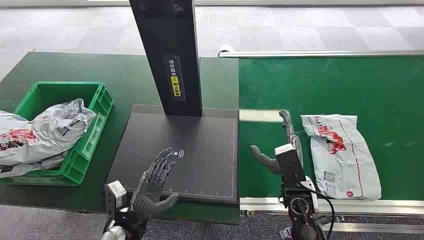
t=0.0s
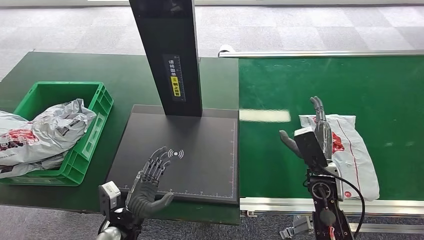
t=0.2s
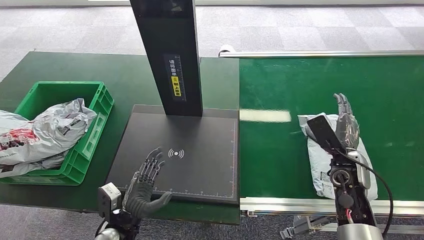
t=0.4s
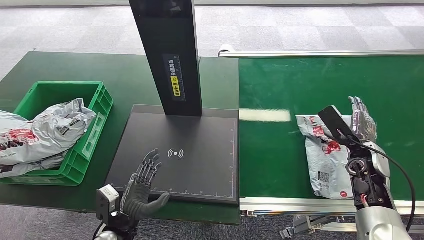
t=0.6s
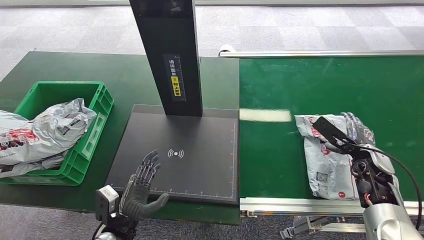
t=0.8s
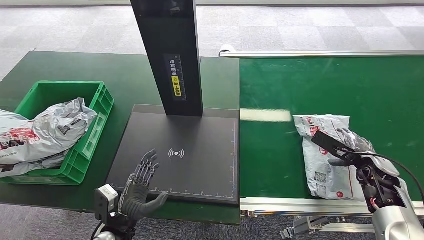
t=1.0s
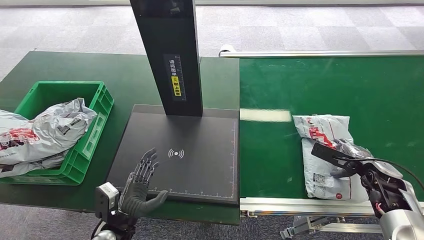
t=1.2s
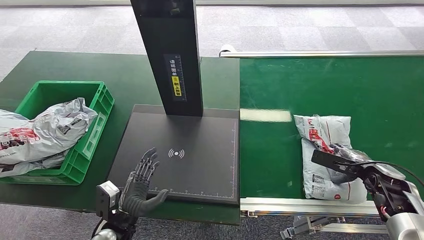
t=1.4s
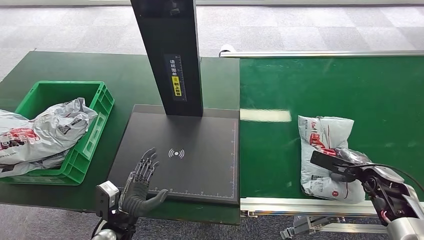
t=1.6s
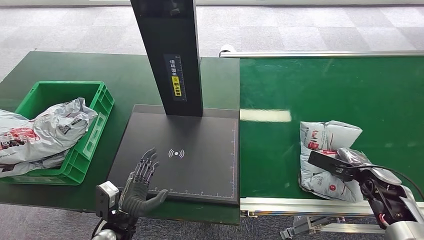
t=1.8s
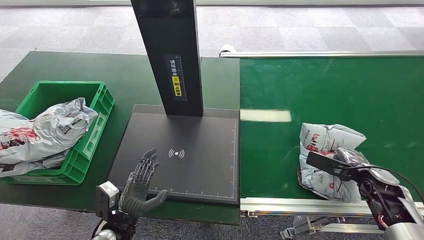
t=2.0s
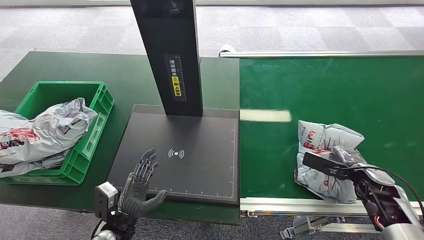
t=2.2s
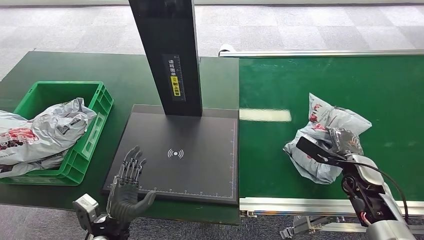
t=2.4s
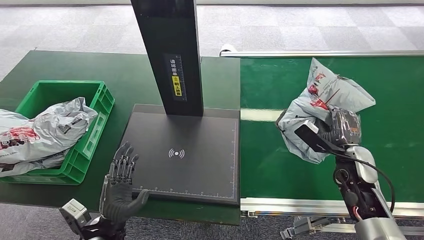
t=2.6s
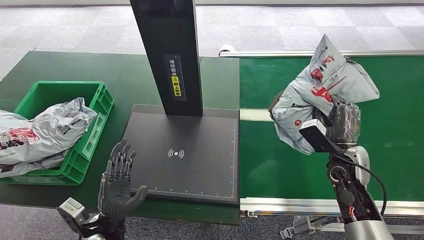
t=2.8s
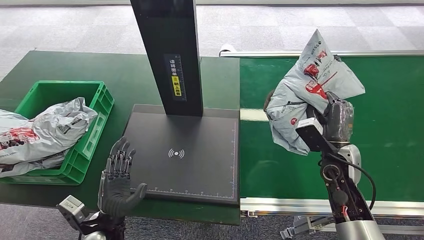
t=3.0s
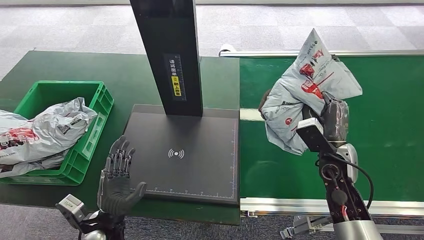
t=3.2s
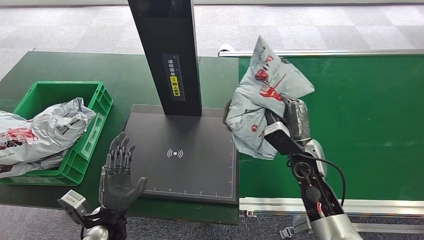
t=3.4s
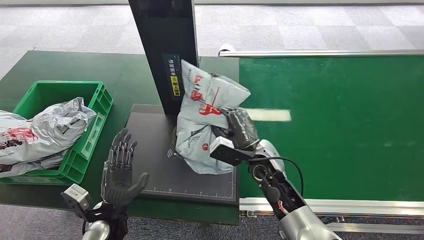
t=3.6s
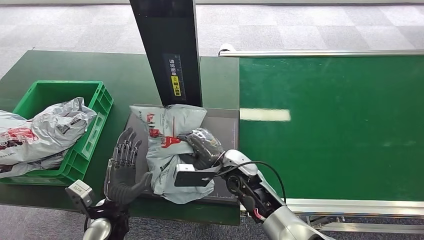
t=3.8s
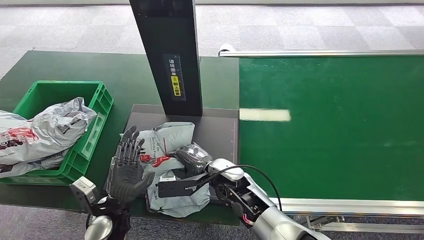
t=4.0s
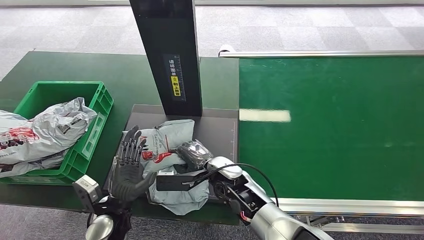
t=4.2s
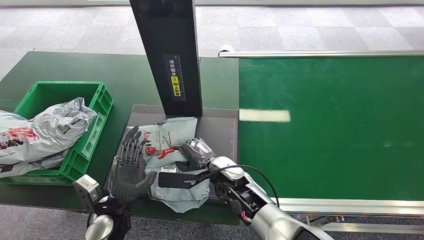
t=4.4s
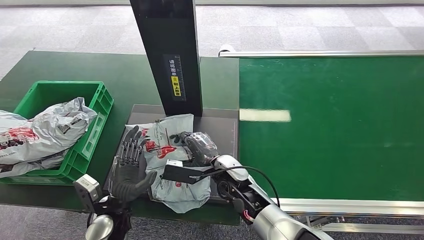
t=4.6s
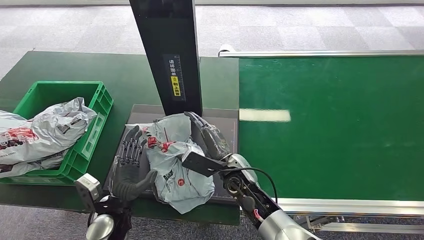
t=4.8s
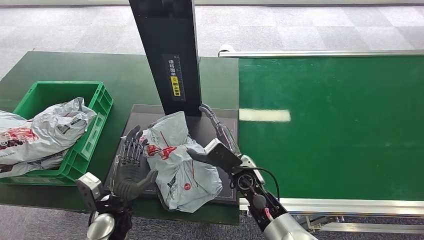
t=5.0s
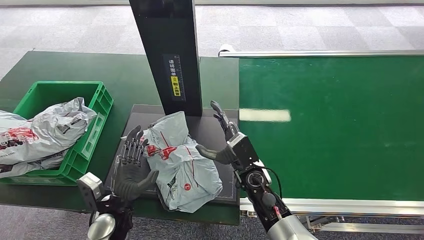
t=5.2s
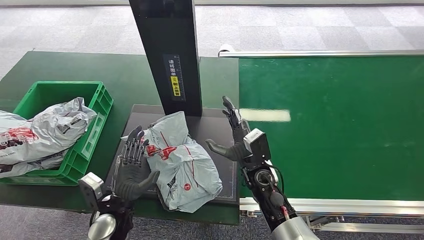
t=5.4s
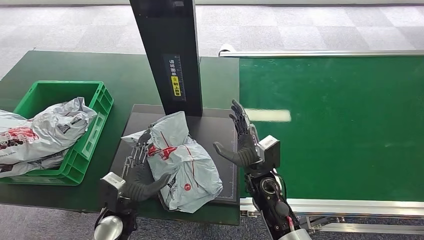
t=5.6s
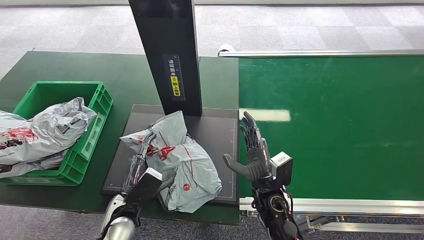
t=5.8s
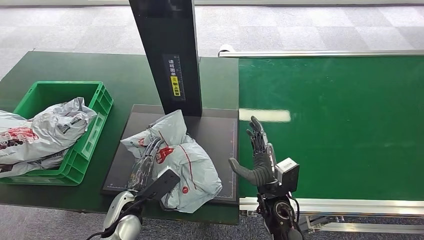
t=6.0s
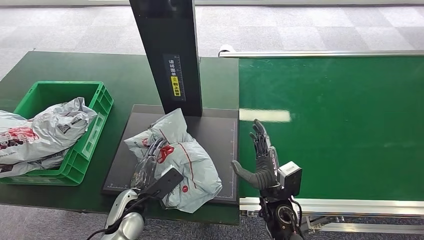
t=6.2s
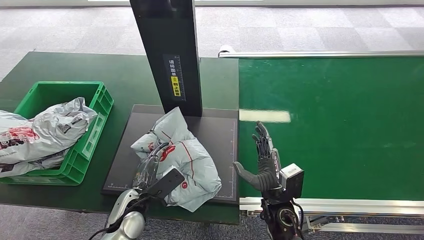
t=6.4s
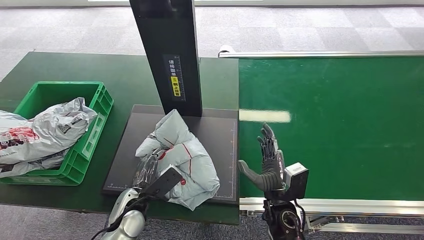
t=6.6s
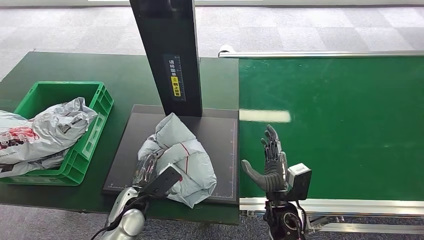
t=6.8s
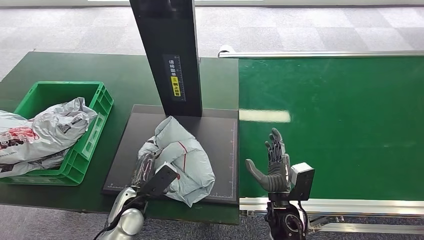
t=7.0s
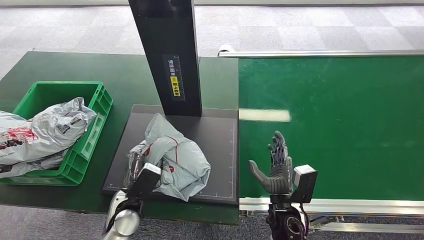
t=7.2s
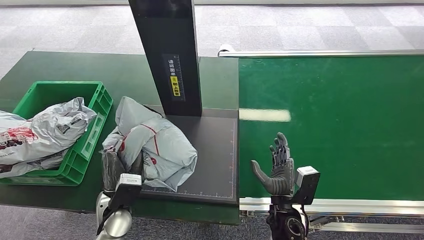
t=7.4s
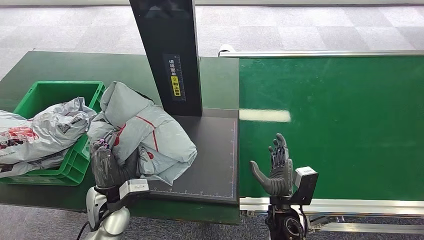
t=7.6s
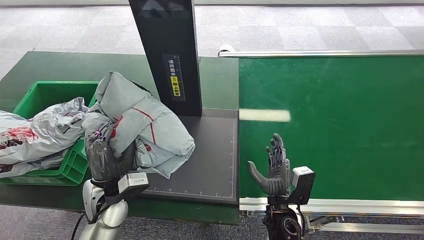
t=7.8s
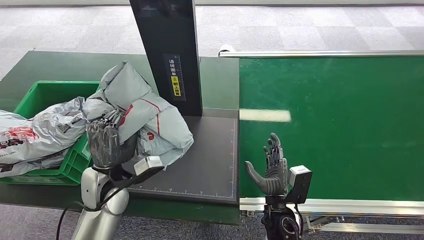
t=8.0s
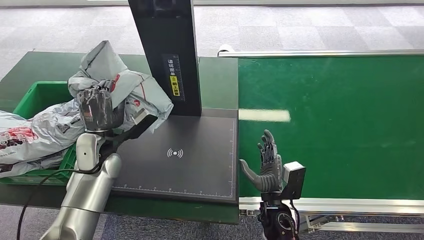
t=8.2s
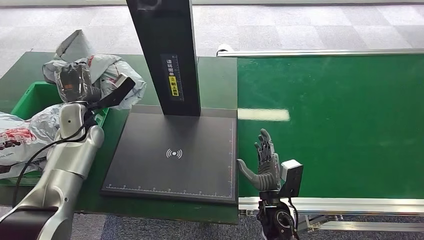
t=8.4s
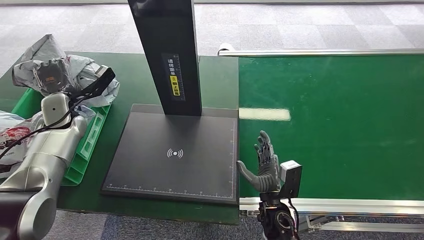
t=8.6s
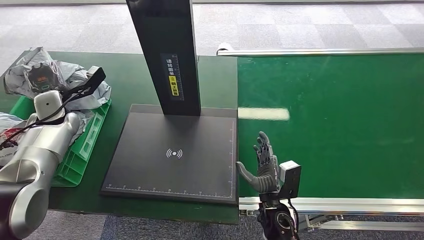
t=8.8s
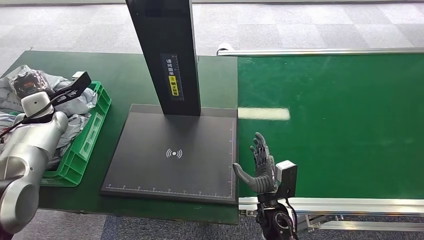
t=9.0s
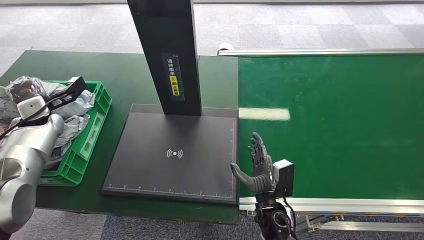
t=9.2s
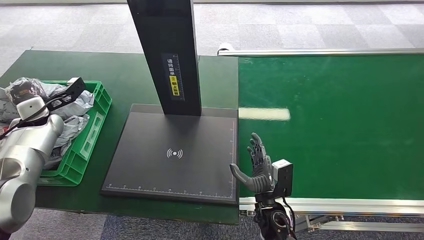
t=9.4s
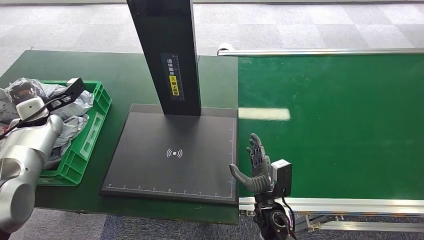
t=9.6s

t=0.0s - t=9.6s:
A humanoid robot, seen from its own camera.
Task of the whole recording: Weigh the package on the weighing device and place it in the left basket.
Step, t=0.0s - t=3.0s: Pick up the package from the conveyor belt.
Step, t=3.4s - t=5.0s: Place the package onto the inbound machine.
Step, t=5.2s - t=7.8s: Pick up the package from the inbound machine.
t=1.6s - t=3.2s: The right hand travels to the left by some 15 cm.
t=4.8s - t=6.4s: The right hand heads to the right and backward, covering roughly 10 cm.
t=6.4s - t=8.0s: The left hand travels upward by about 10 cm.

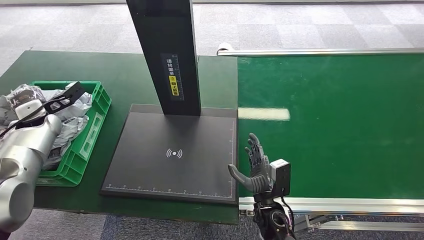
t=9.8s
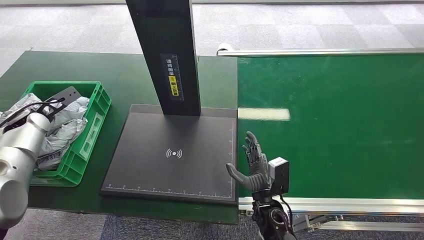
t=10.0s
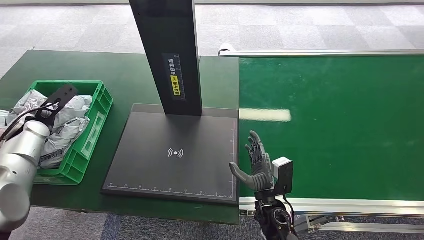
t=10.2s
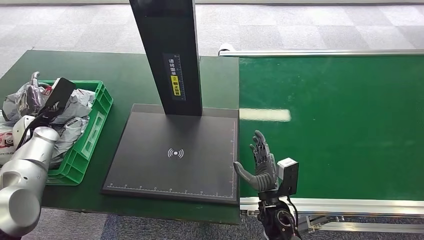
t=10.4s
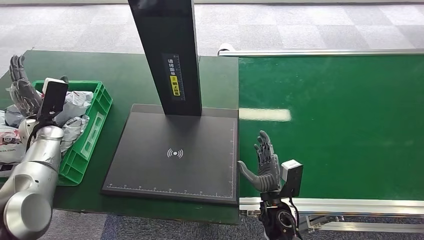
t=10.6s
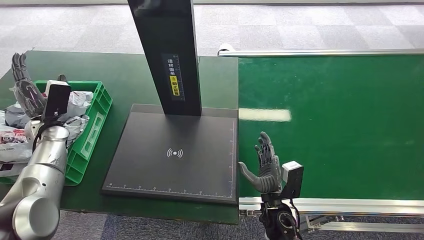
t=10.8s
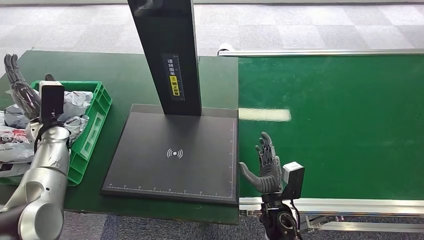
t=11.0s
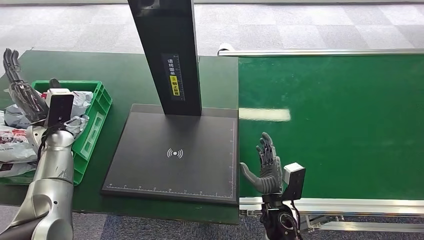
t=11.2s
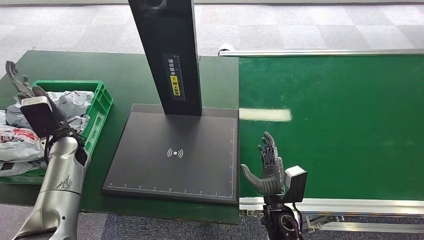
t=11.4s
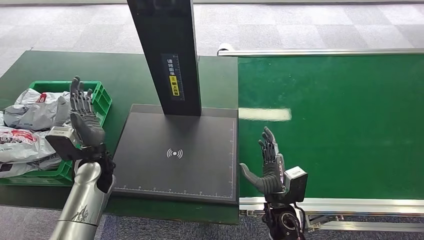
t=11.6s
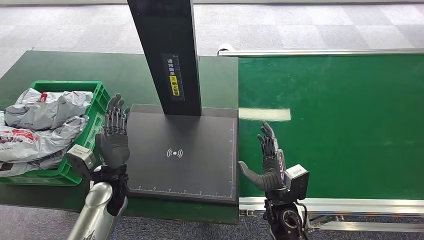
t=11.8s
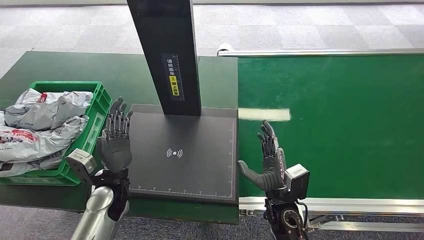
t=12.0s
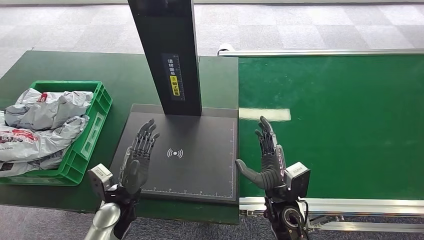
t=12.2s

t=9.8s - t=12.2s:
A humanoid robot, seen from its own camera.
Task of the whole recording: Weigh the package on the weighing device and place it in the left basket.
Step, t=9.8s - t=12.2s: Place the package into the parcel locker.
t=9.8s - t=11.0s: The left hand shifts by about 5 cm.
t=11.0s - t=12.2s: The left hand is displaced to the right, backward and downward by approximately 30 cm.

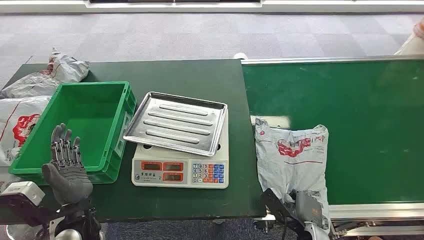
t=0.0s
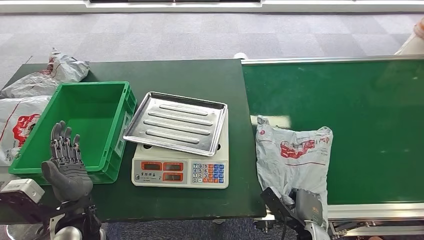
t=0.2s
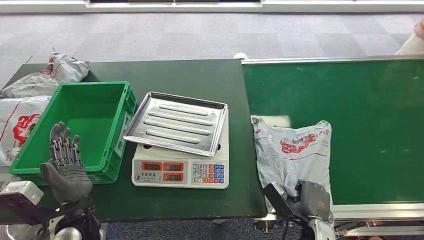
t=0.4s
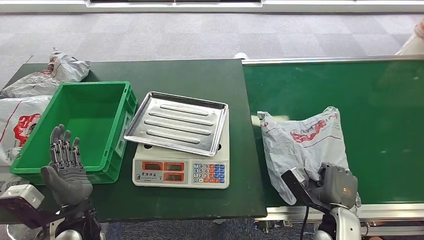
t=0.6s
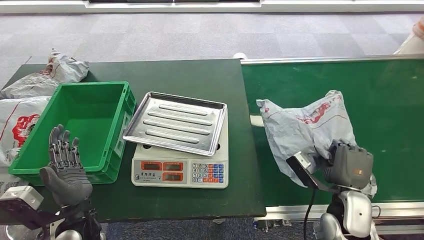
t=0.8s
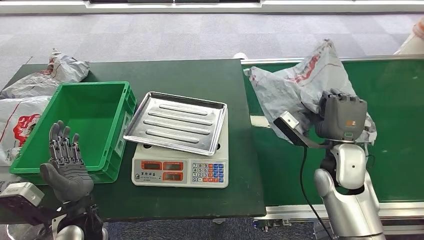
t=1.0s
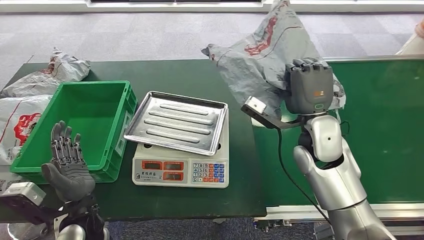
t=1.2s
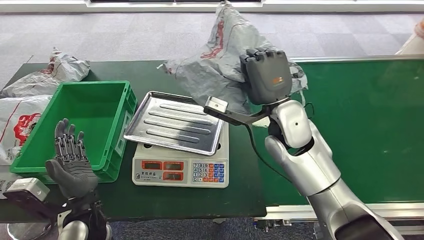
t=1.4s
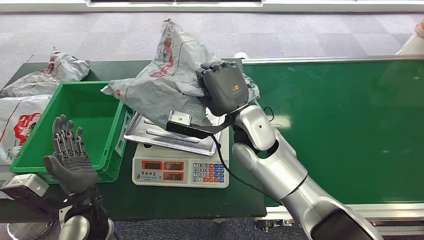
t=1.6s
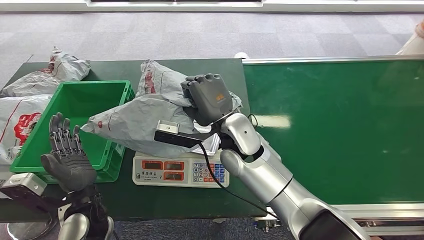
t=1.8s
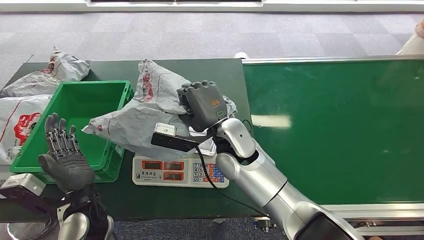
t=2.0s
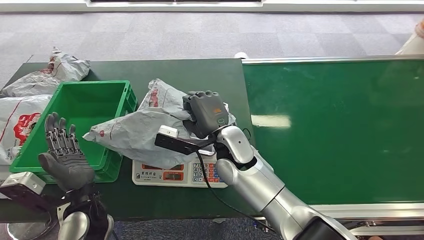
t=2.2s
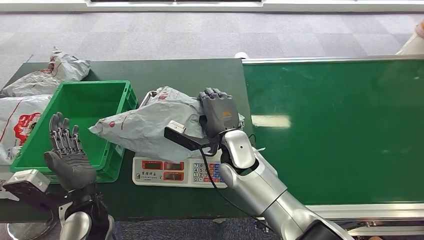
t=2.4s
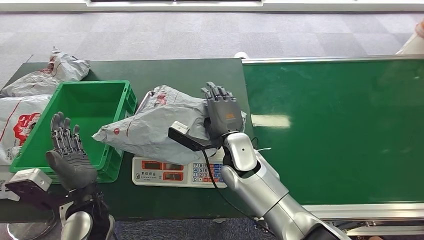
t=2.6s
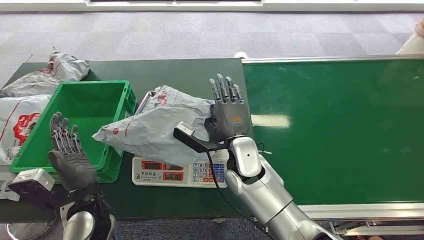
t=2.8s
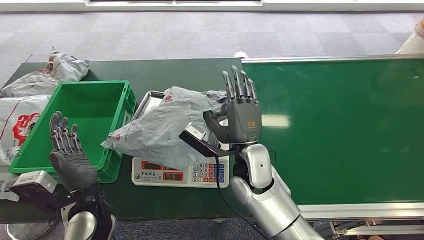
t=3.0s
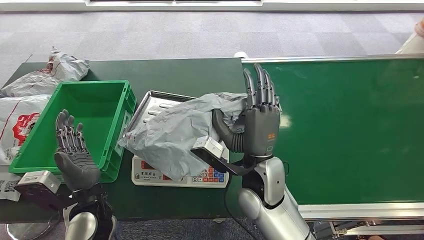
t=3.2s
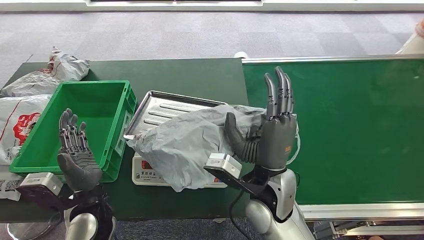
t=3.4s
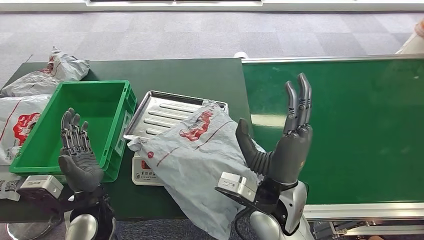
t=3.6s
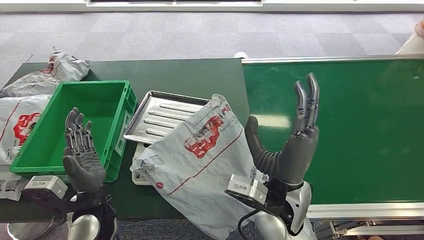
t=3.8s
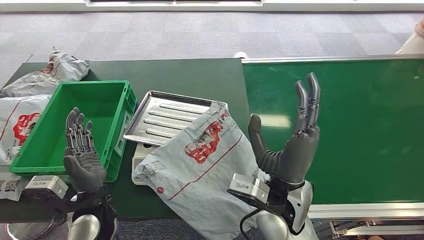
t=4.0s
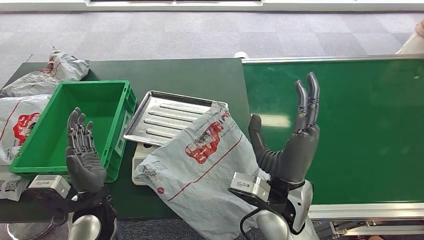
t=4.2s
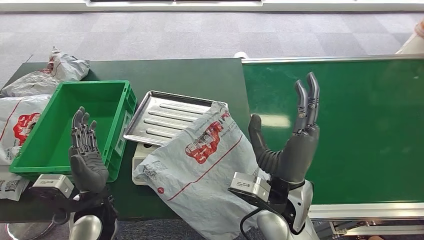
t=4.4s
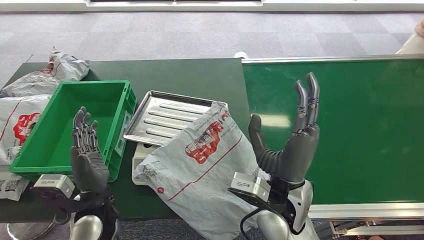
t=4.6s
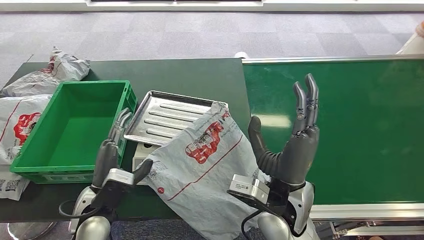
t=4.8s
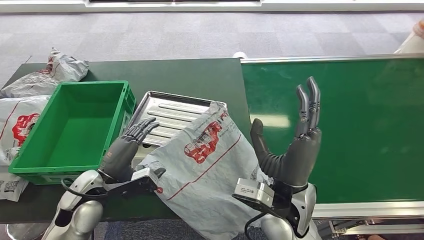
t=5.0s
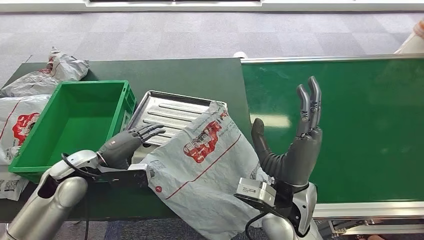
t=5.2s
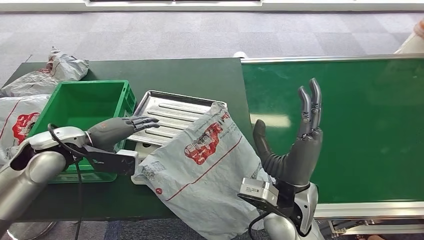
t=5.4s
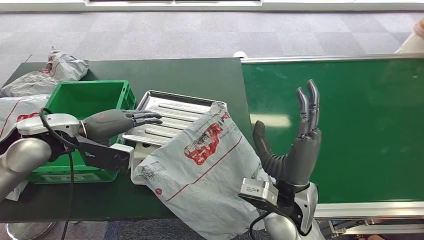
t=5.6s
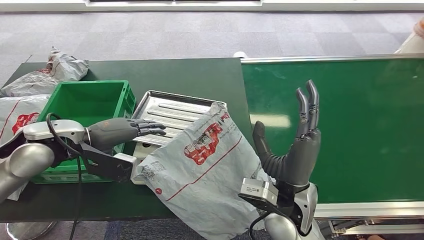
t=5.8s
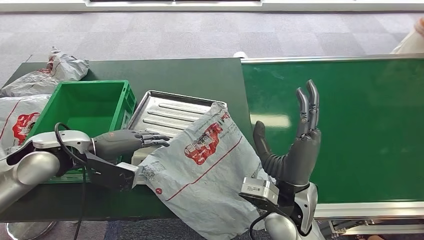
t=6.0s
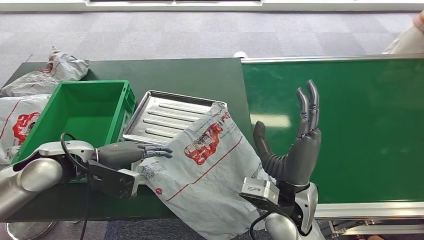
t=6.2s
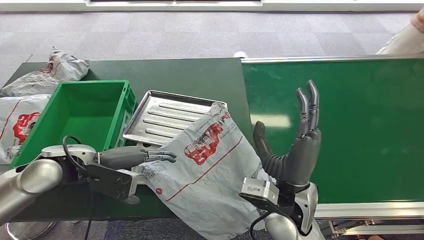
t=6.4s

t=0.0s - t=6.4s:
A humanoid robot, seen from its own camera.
Task of the whole recording: Weigh the package on the weighing device and place it in the left basket.
Step, t=0.0s - t=1.4s: Pick up the package from the conveyor belt.
Step, t=1.6s - t=4.0s: Place the package onto the inbound machine.
t=4.8s - t=6.4s: The left hand heads upward, forward and to the left, covering about 15 cm.
